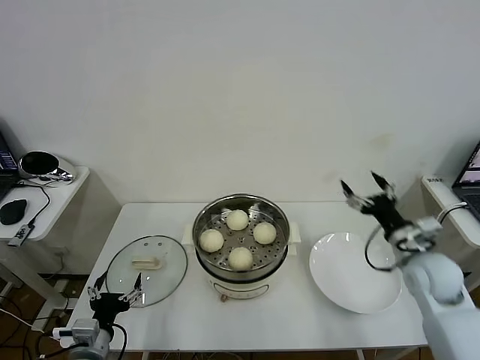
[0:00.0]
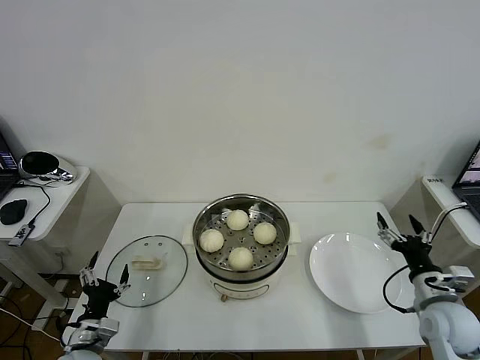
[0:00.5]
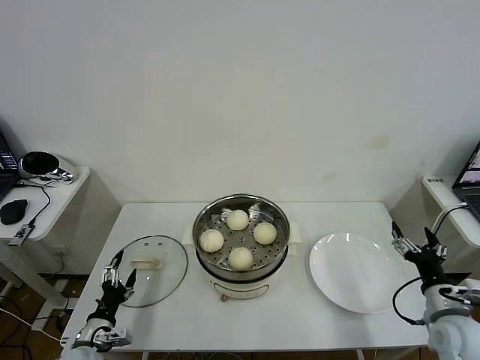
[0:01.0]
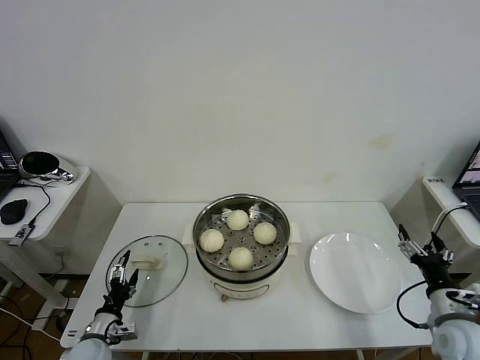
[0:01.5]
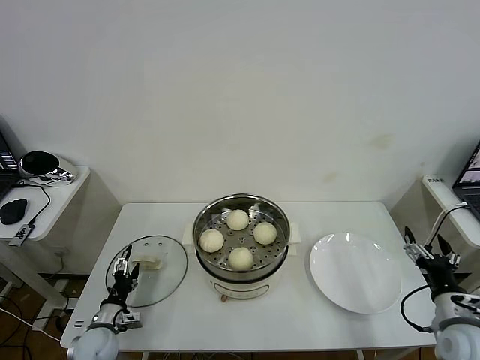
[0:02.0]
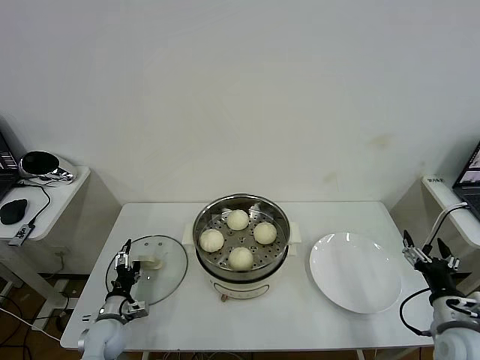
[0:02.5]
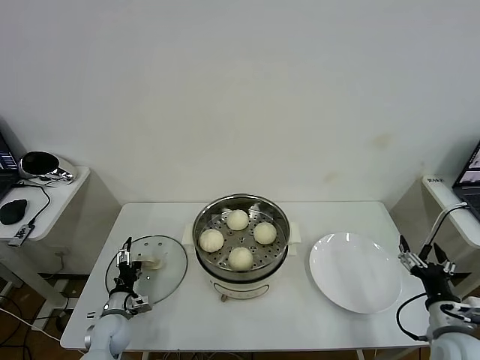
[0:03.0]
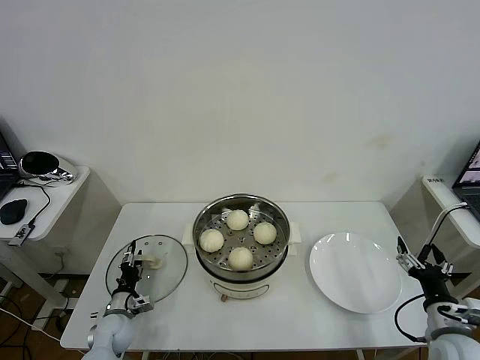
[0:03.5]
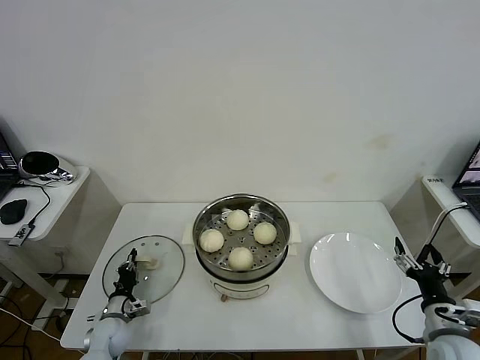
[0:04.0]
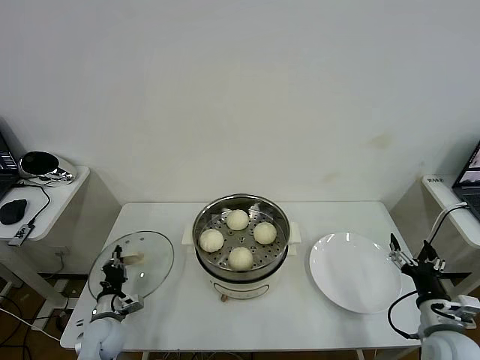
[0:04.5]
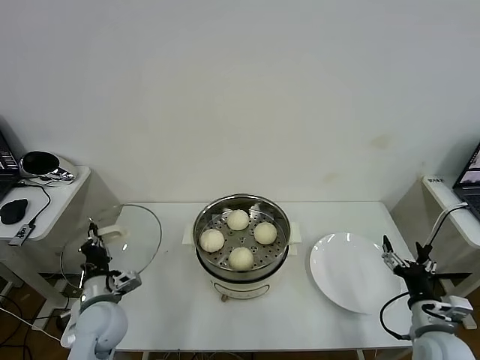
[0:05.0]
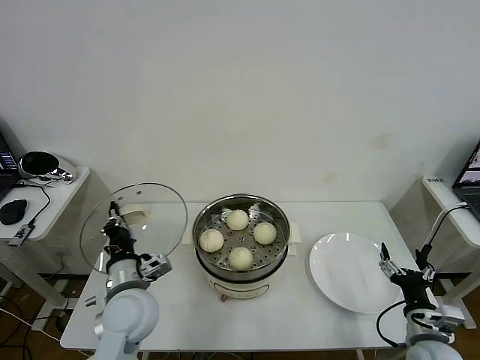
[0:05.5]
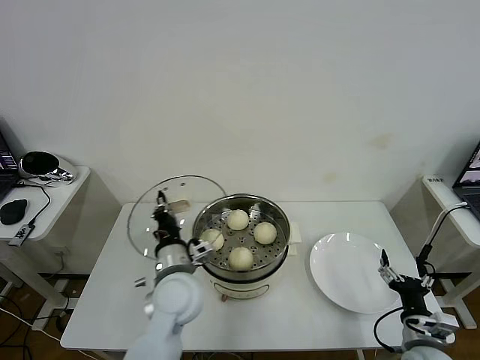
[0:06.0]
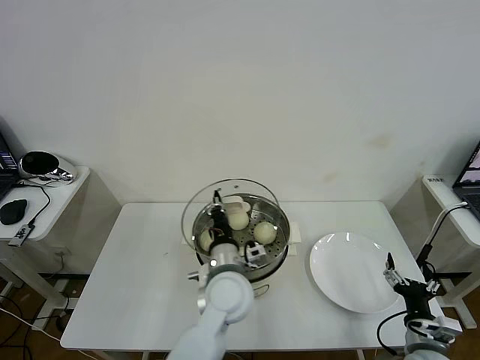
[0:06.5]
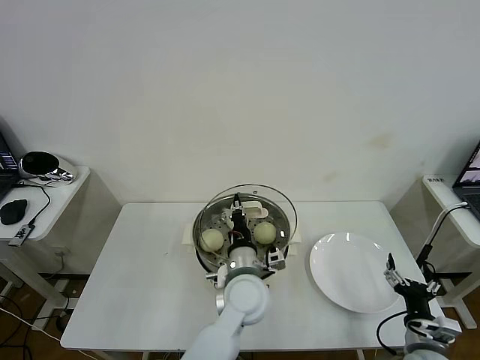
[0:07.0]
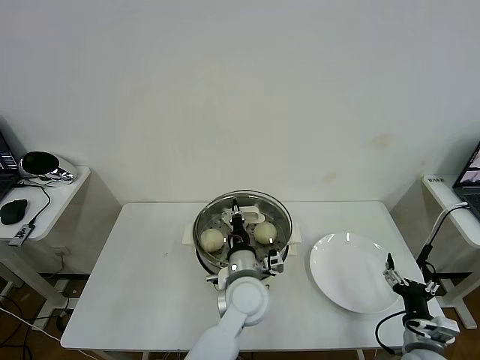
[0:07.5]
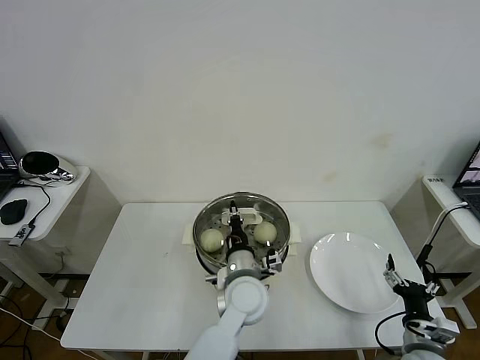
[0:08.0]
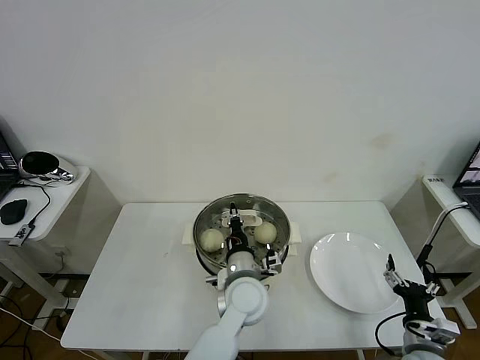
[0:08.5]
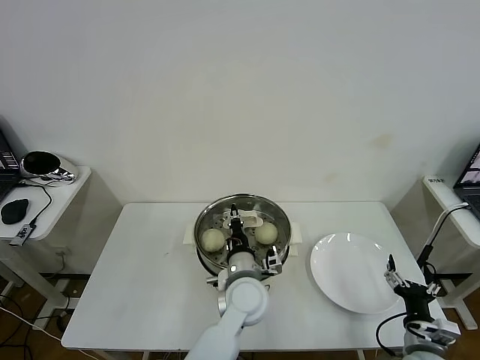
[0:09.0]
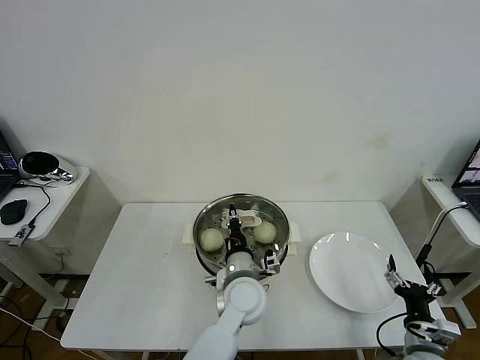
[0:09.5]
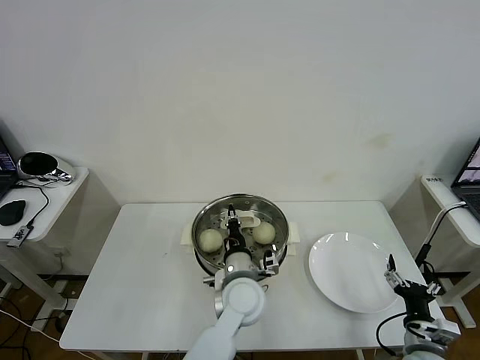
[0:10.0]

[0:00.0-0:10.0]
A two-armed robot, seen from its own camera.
Task of the whole recording: take steamed baozi put them in steamer then cover it.
Step, 0:00.0 to 0:04.0: Grasp the pot lid with left gripper.
0:00.0 to 0:02.0: The right gripper moves backward and downward, approximately 15 cm. The left gripper goes roughly 15 cm downward and forward.
0:02.0 to 0:04.0: The left gripper ends up approximately 5 cm from where it was, and closes.
0:04.0 to 0:06.0: The right gripper changes place by roughly 5 cm. The left gripper shifts about 35 cm upward and to the right.
0:06.0 to 0:08.0: The left gripper shifts roughly 15 cm to the right.
0:08.0 to 0:10.0: Both grippers stay put.

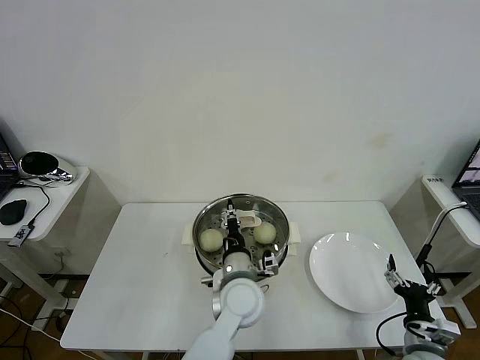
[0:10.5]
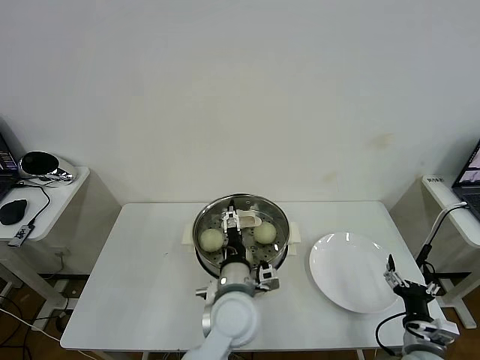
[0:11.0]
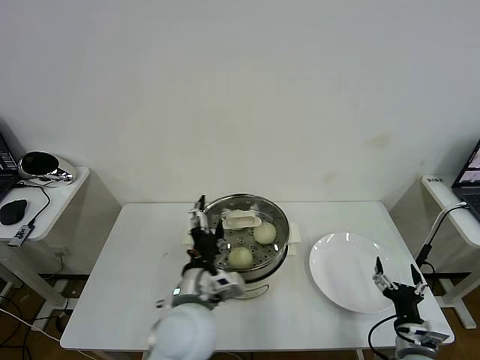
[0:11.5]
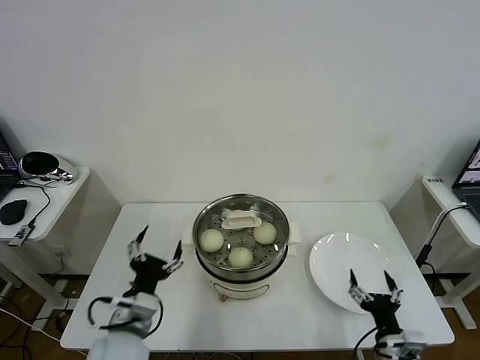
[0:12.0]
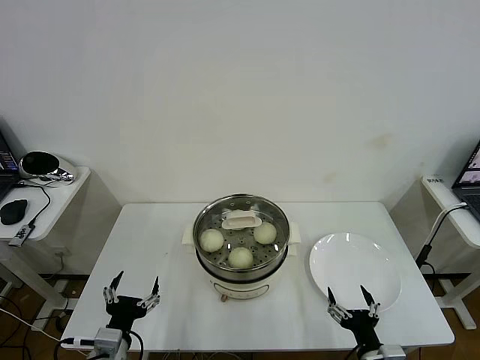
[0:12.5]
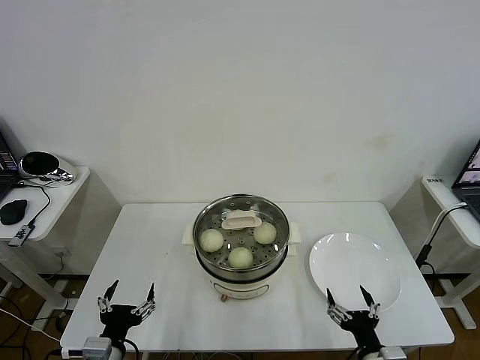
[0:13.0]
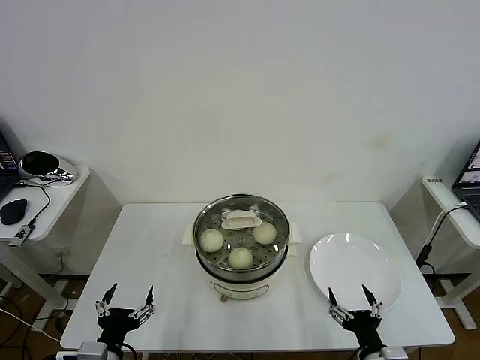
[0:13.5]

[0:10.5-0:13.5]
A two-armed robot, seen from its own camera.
Task of the whole recording: take steamed baozi put them in steamer then cover it.
0:10.5 to 0:12.0: The left gripper travels to the left and backward by about 20 cm, and opens.
0:12.0 to 0:13.5: The left gripper goes some 15 cm backward, to the left and downward. Meanwhile the right gripper ends up roughly 5 cm from where it was.
